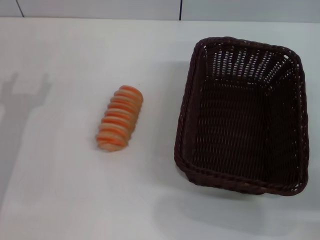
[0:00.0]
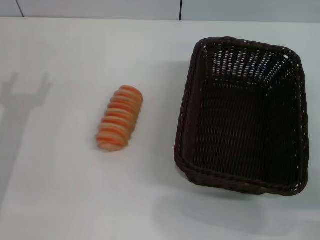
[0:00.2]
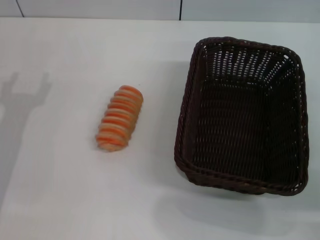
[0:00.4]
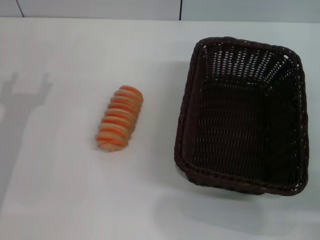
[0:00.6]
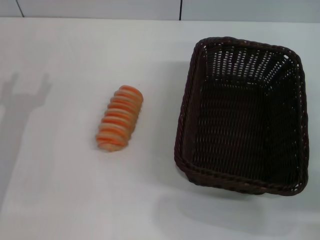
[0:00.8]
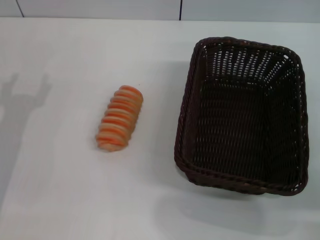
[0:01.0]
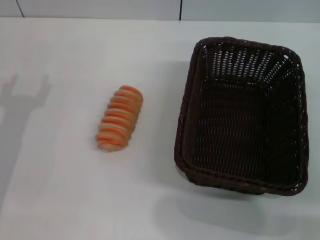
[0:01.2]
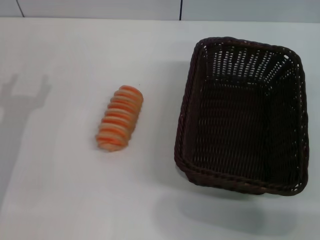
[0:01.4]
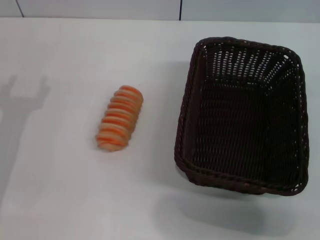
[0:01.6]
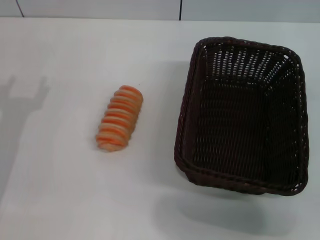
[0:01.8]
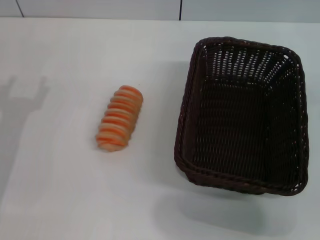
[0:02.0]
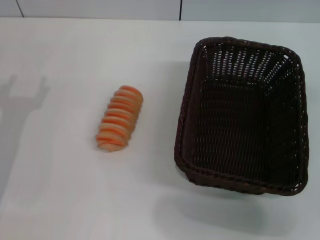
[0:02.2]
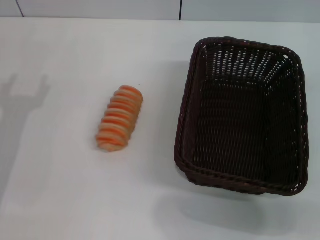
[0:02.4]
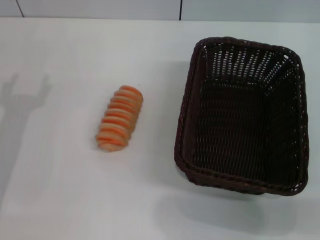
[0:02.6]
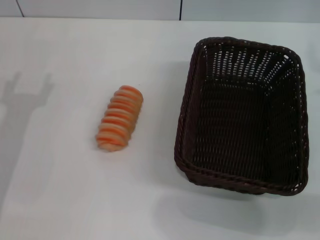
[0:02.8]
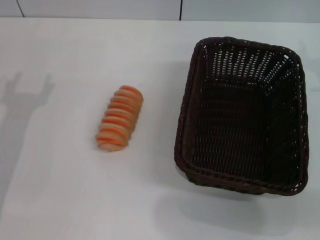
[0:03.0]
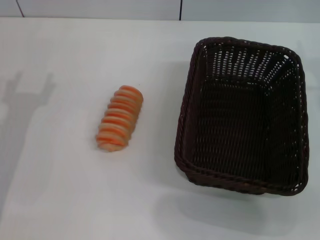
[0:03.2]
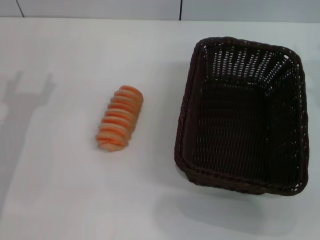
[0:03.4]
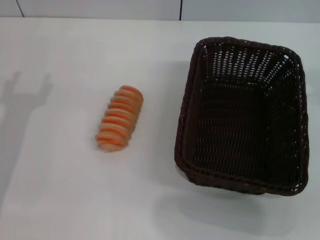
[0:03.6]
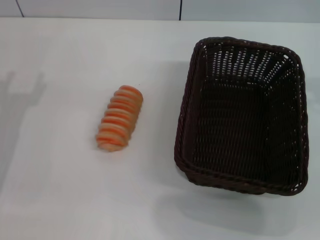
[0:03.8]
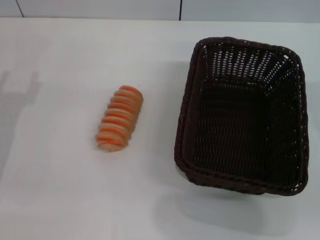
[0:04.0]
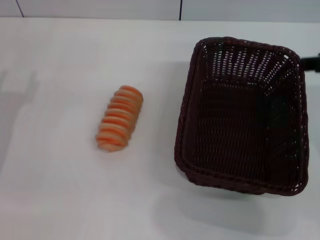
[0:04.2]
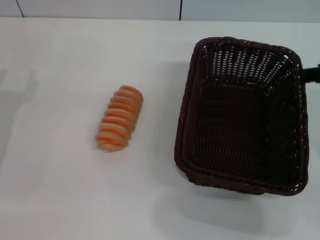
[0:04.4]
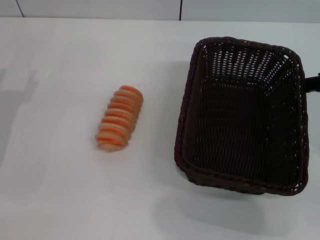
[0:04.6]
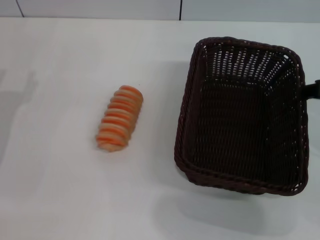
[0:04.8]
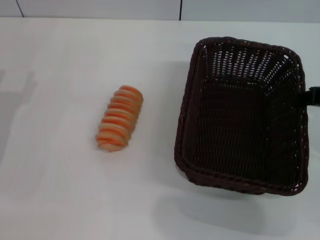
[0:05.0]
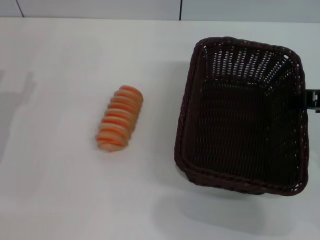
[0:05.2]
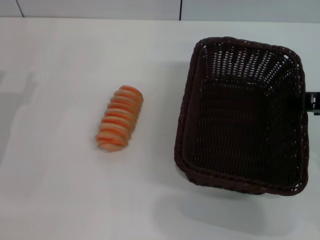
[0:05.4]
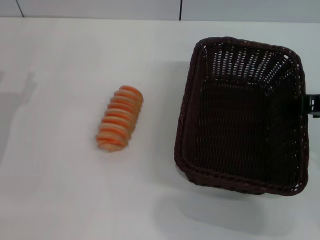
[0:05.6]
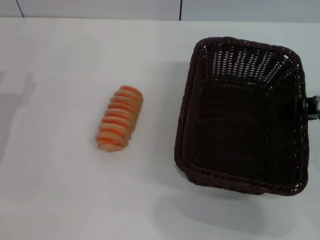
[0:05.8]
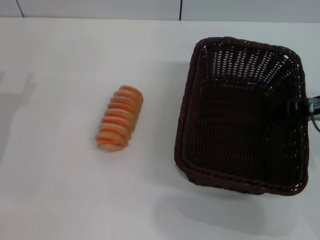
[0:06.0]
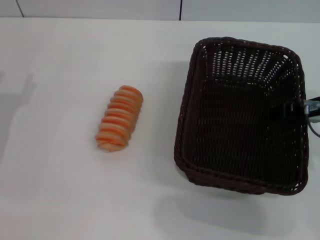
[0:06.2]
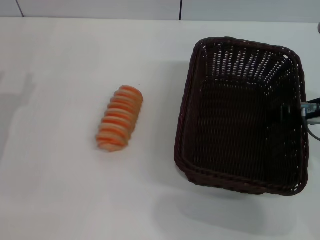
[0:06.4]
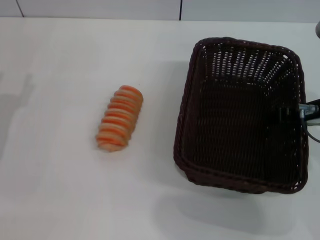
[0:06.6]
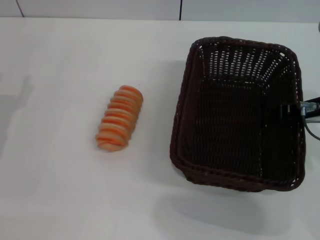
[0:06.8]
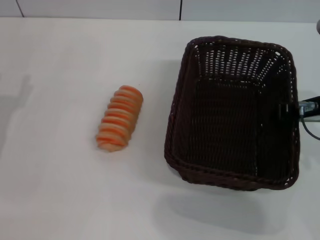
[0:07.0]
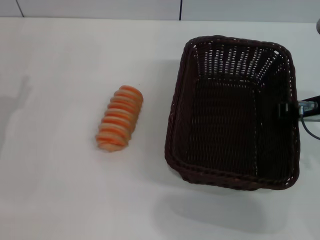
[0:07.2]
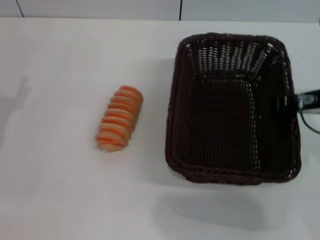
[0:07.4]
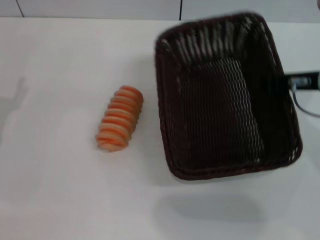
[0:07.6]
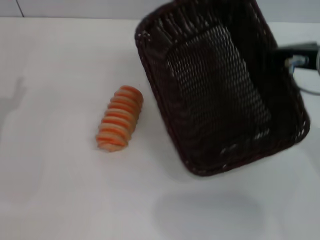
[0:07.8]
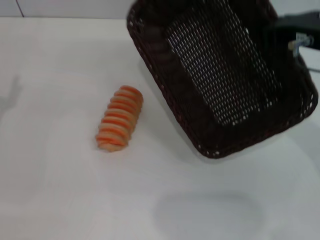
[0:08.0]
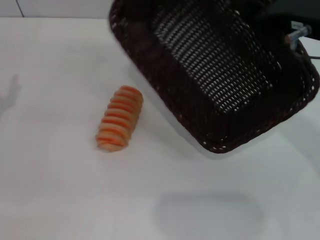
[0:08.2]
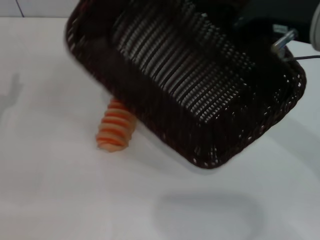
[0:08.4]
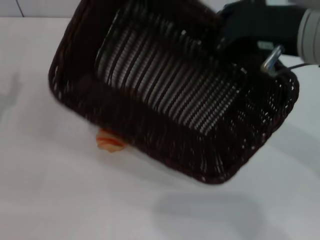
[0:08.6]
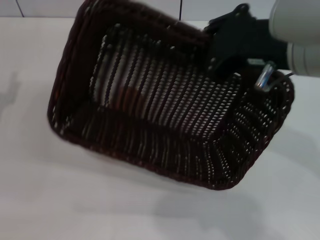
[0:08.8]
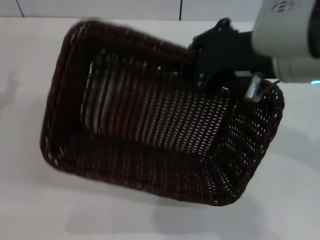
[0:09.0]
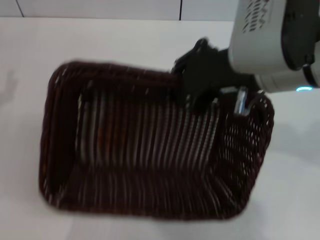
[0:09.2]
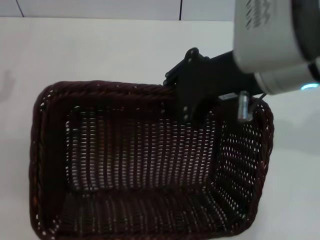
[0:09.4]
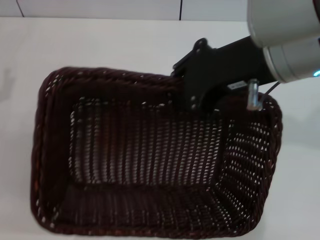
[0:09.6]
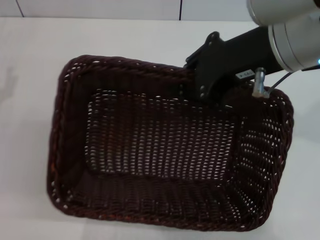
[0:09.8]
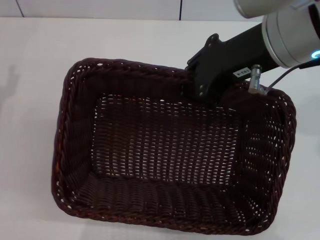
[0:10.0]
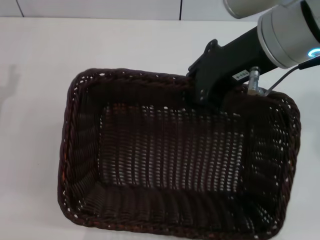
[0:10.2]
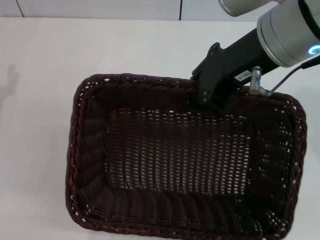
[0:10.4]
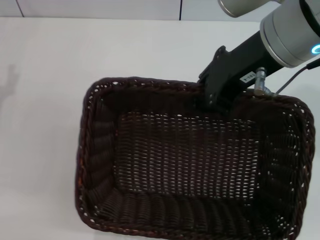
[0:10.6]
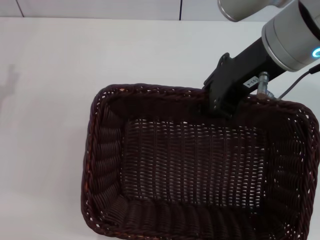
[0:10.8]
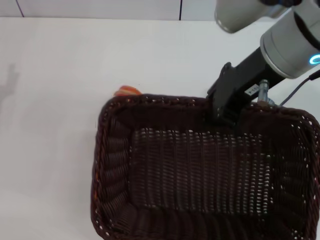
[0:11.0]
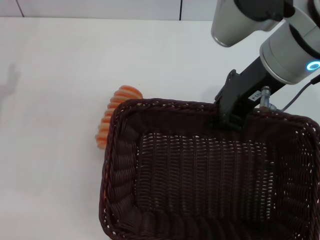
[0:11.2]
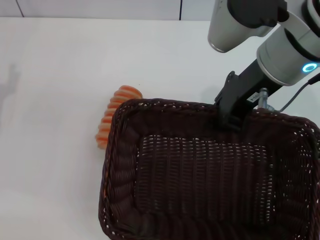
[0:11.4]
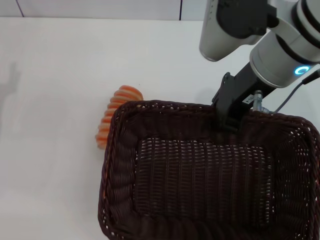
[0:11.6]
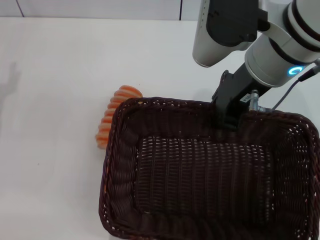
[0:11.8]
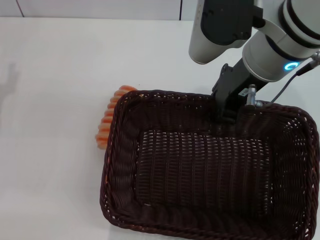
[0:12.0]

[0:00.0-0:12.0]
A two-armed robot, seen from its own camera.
Step, 0:00.0 to 0:07.8: Pick up the dark basket with the right gripper.
0:00.0 to 0:01.6: The right gripper travels upward by about 5 cm.
0:04.4 to 0:06.0: The right gripper moves downward, some 5 cm.
0:06.0 to 0:07.6: The right gripper closes.
0:07.6 to 0:09.0: The right gripper heads to the left and upward, covering approximately 10 cm.

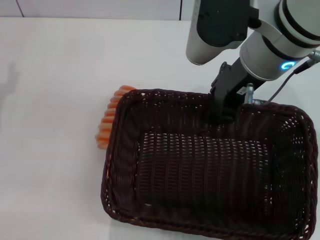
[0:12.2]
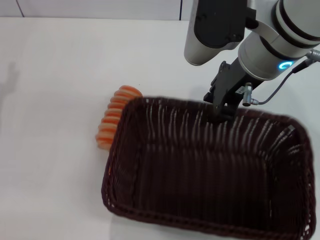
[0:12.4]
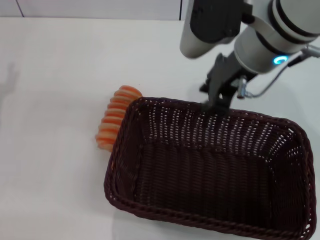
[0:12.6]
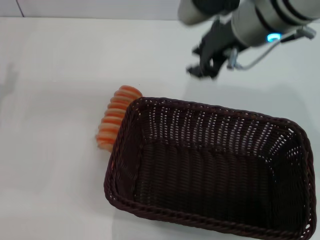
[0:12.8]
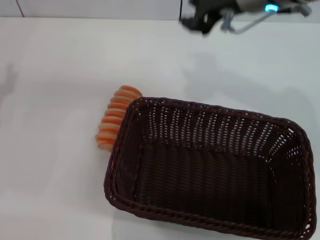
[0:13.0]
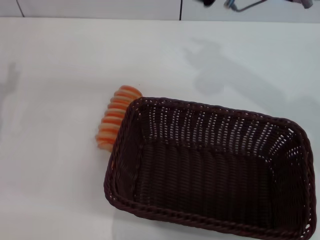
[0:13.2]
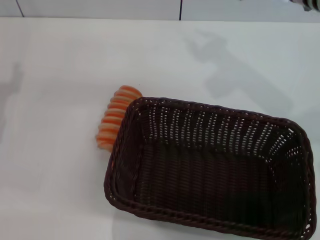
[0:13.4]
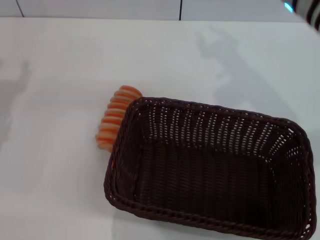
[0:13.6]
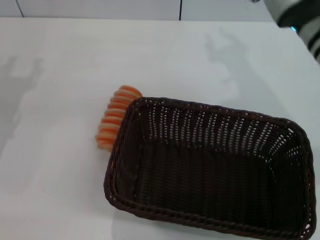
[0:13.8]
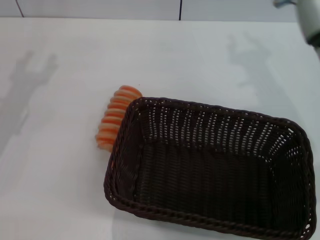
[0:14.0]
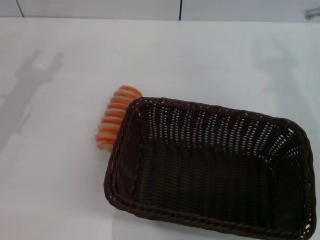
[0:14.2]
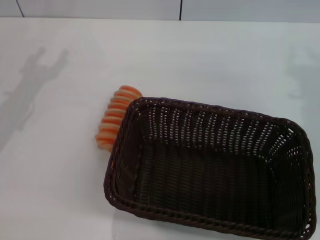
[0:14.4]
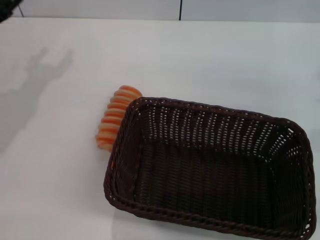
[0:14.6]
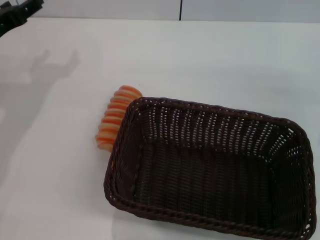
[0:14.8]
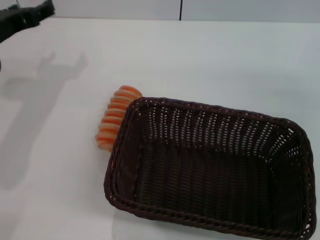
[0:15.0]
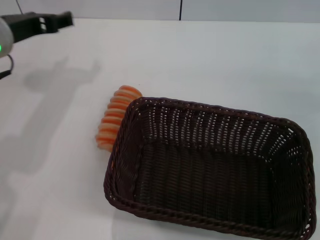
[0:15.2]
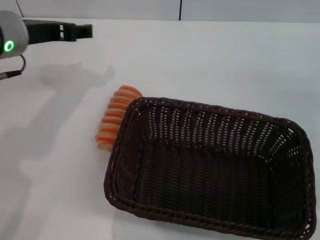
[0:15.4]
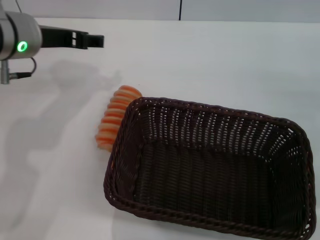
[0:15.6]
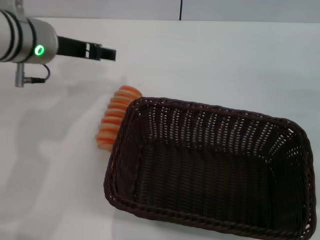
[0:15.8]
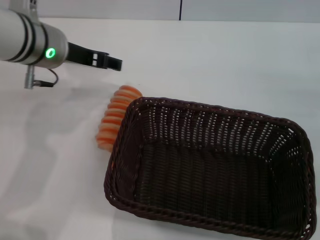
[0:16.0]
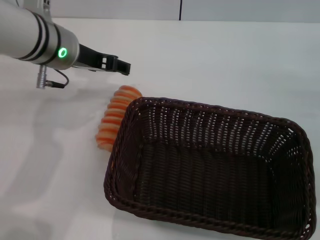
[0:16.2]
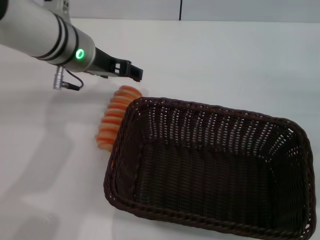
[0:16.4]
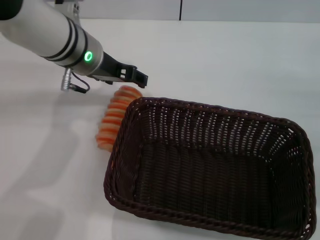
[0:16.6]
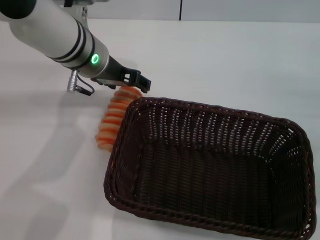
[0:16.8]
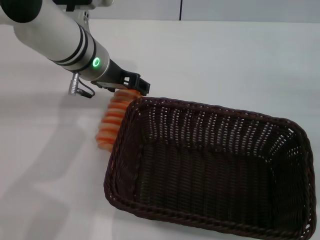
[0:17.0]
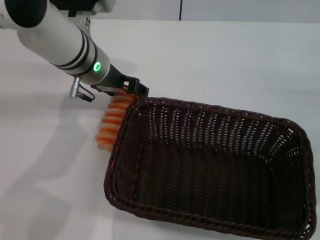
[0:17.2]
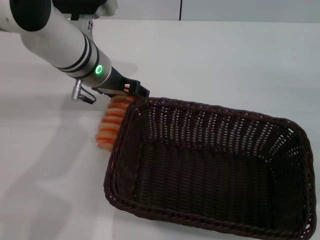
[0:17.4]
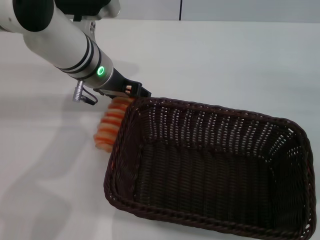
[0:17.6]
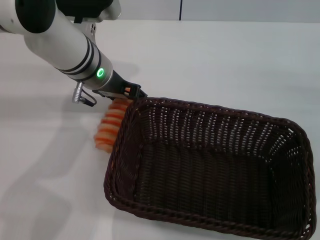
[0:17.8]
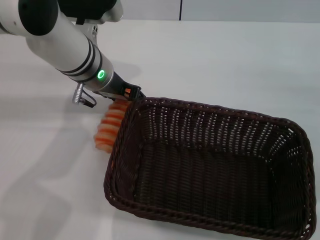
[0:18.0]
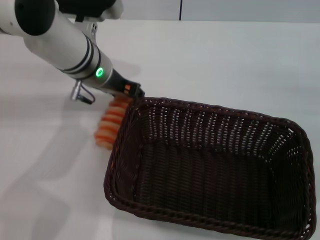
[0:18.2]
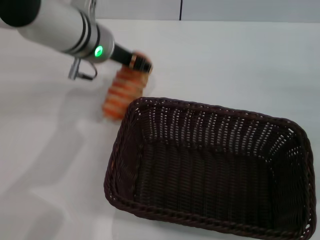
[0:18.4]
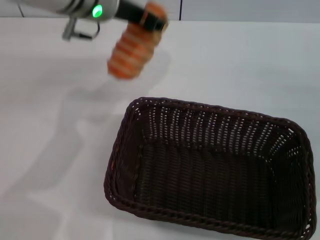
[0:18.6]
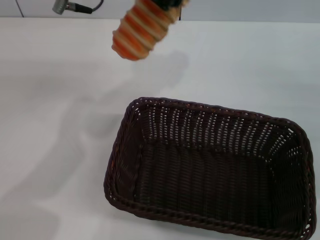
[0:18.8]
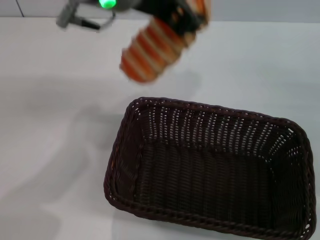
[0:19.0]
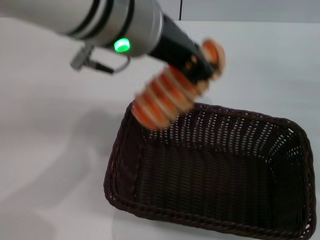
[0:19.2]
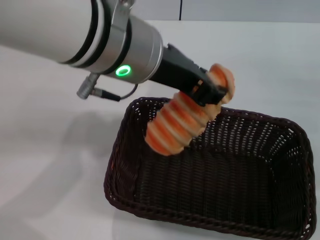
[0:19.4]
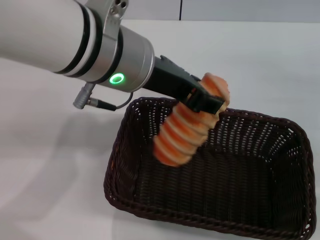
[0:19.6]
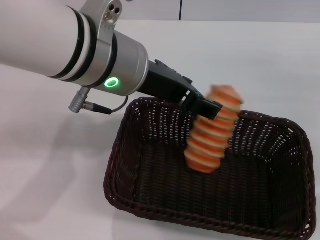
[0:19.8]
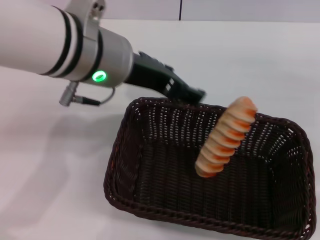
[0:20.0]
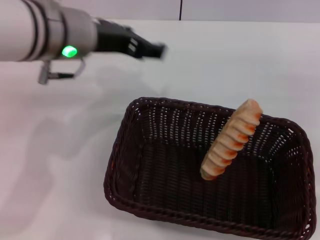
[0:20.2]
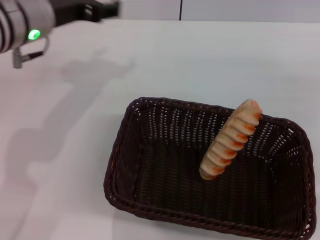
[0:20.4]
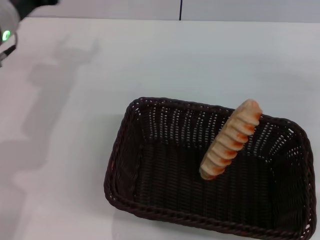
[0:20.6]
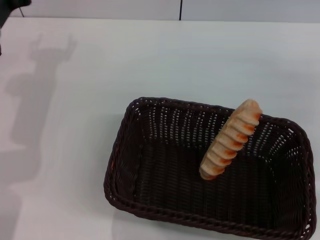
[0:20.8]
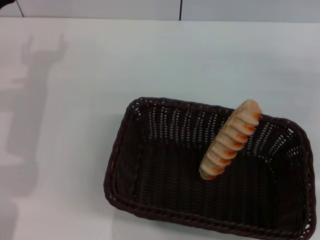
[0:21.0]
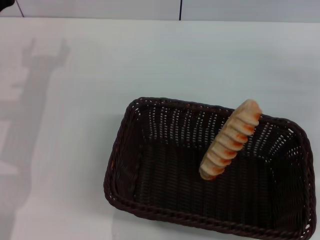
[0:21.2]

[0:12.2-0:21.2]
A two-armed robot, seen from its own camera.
Step, 0:12.6 to 0:18.6: Pick up the long bread with the left gripper.
Step, 0:18.8 to 0:19.8: Place the long bread into the dark basket with the left gripper.
0:12.2 to 0:13.8: The right gripper moves roughly 5 cm.
0:13.8 to 0:15.2: The right gripper heads to the right, downward and backward, covering roughly 20 cm, while the left gripper is displaced to the right, upward and forward by roughly 15 cm.
0:15.2 to 0:16.6: The left gripper travels to the right and forward by about 10 cm.
0:16.6 to 0:18.2: The left gripper closes its fingers.
0:18.2 to 0:19.8: The left gripper heads backward and upward, covering about 15 cm, and closes, then opens again.
0:19.8 to 0:21.2: The left gripper heads to the left and downward, covering approximately 25 cm, and opens its fingers.

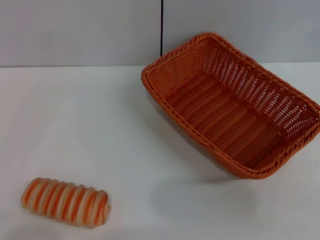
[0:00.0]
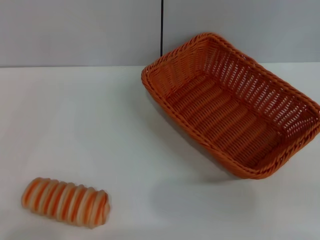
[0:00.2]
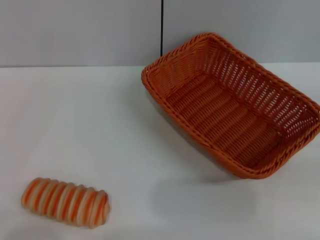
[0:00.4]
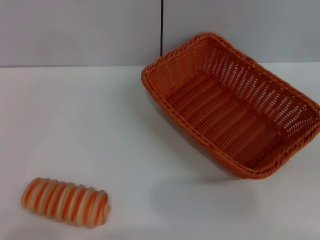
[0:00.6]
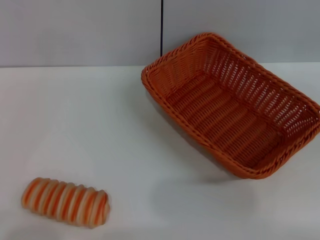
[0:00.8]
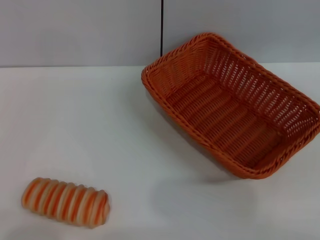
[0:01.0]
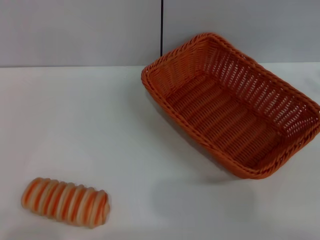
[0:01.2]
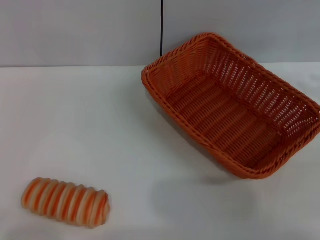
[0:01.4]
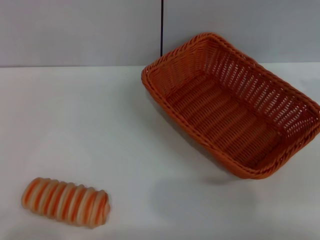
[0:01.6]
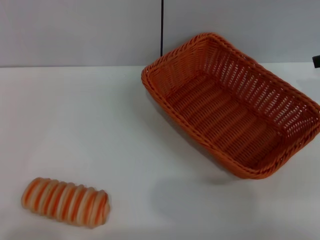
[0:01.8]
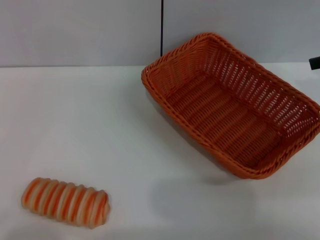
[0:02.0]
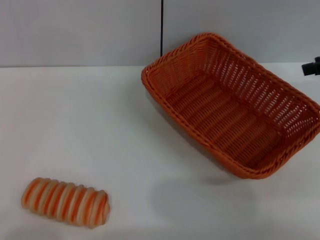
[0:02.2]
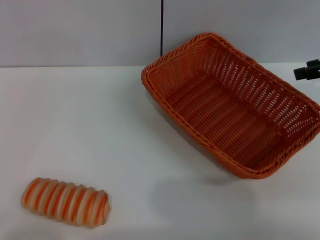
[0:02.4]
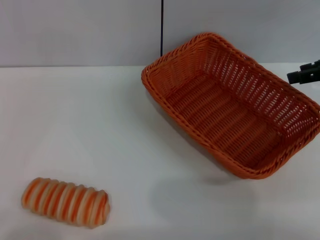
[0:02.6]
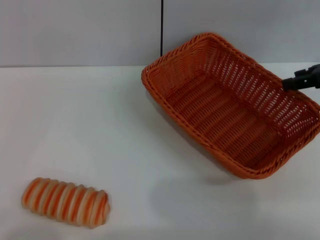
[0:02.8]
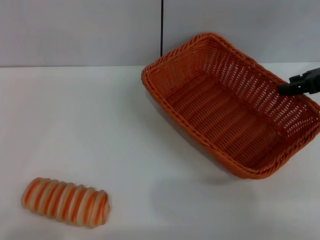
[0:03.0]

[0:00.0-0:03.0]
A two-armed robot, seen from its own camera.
0:00.0 to 0:01.6: The right gripper travels upward, forward and to the left by roughly 25 cm.
0:01.6 to 0:03.0: The right gripper heads downward, covering some 5 cm.
